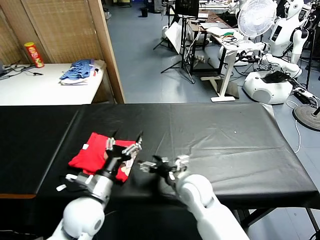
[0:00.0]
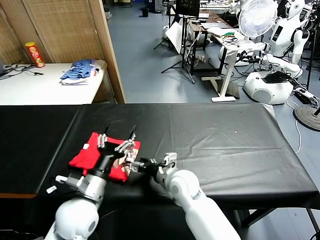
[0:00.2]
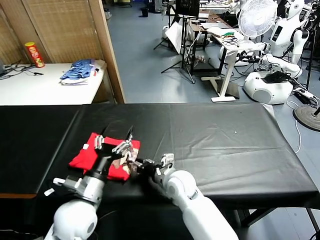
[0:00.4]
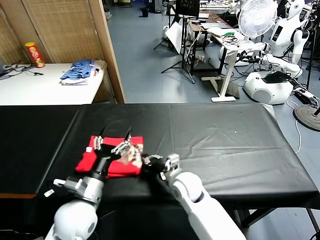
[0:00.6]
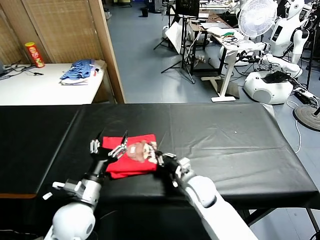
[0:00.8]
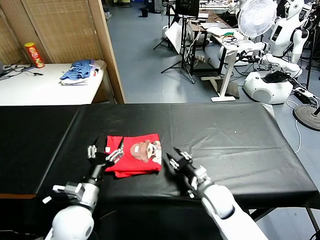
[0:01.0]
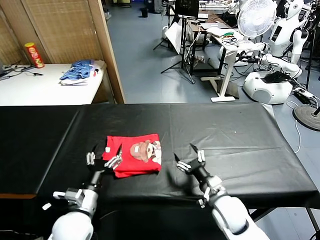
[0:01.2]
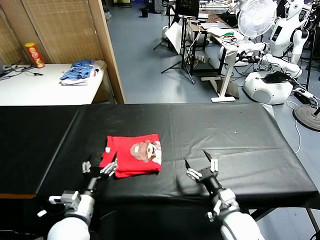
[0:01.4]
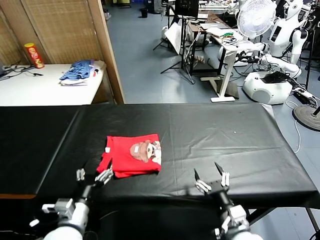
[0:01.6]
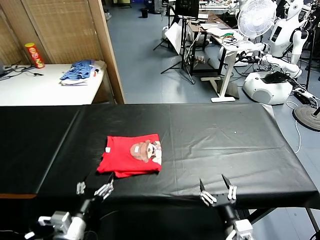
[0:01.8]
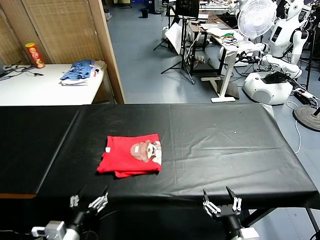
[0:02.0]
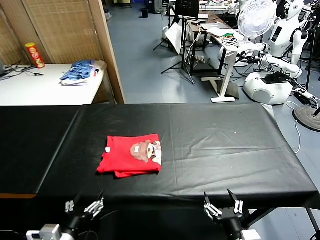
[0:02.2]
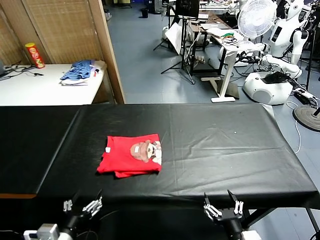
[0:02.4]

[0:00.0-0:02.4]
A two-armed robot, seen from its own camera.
Task of the whole recording: fold and organize the clothes.
Step, 0:00.0 to 0:01.0: Drag the clothes to the center of the table.
0:00.0 to 0:01.2: The right gripper travels to the right by some 10 cm, and closes, then opens again. Meanwhile the left gripper changes place by about 5 cm.
0:01.2 to 0:02.4: The right gripper heads backward, covering approximately 20 cm, while the left gripper travels backward by roughly 10 cm.
